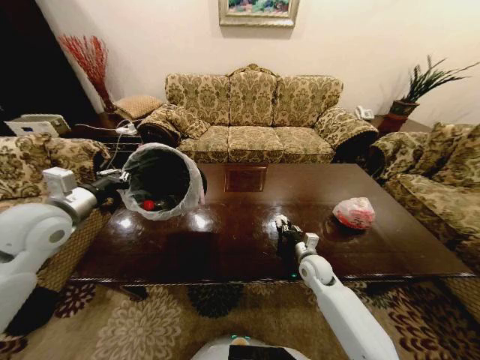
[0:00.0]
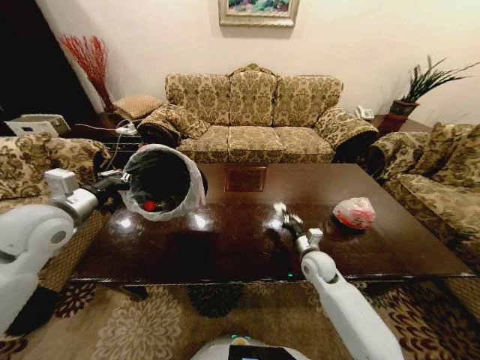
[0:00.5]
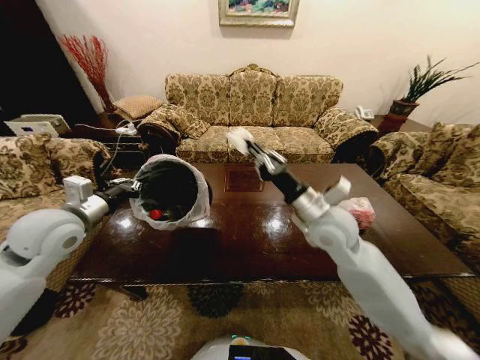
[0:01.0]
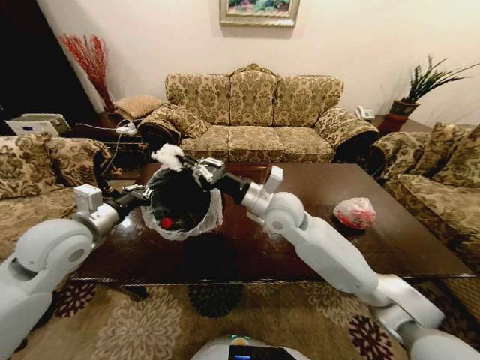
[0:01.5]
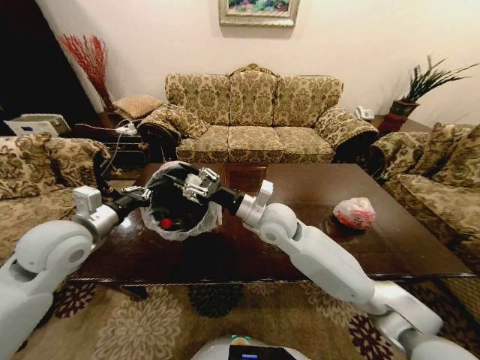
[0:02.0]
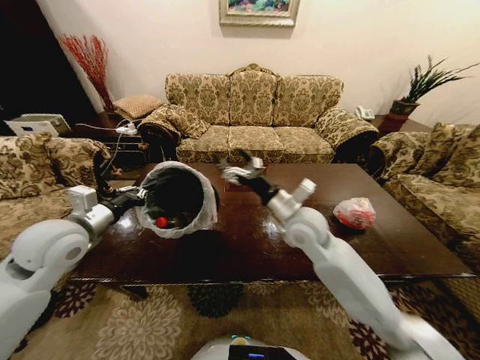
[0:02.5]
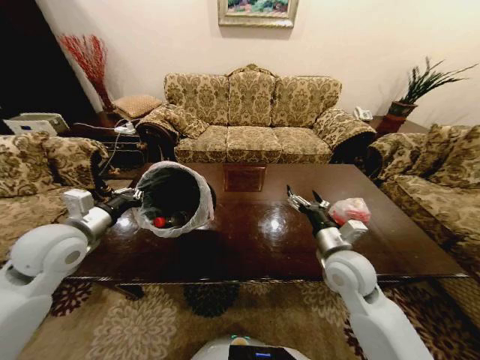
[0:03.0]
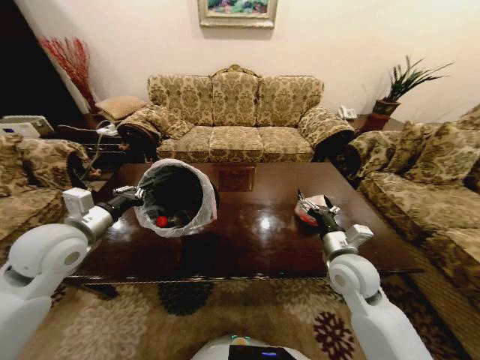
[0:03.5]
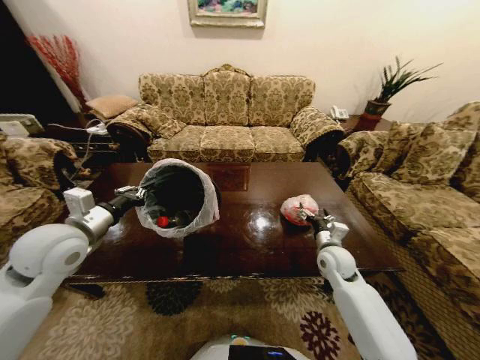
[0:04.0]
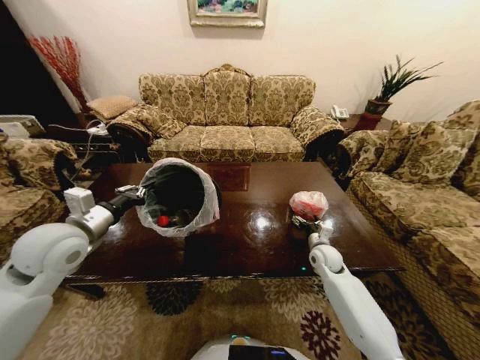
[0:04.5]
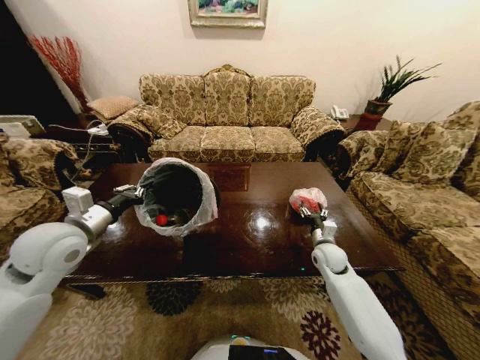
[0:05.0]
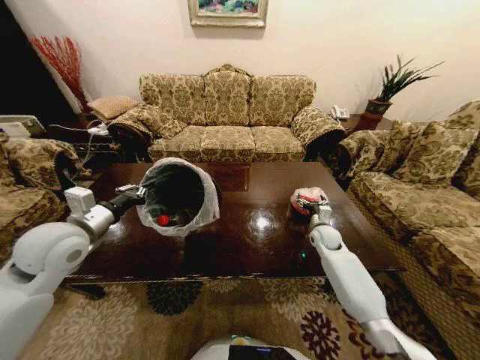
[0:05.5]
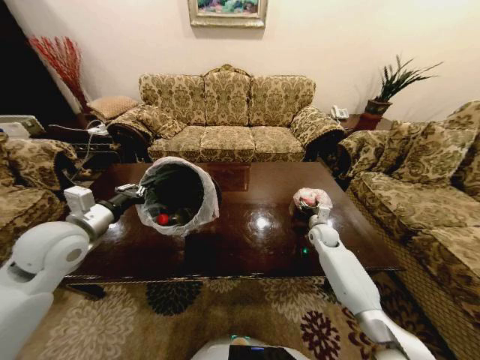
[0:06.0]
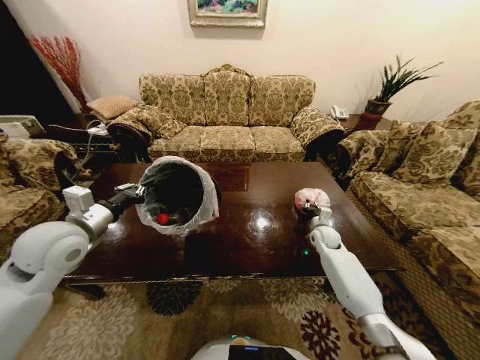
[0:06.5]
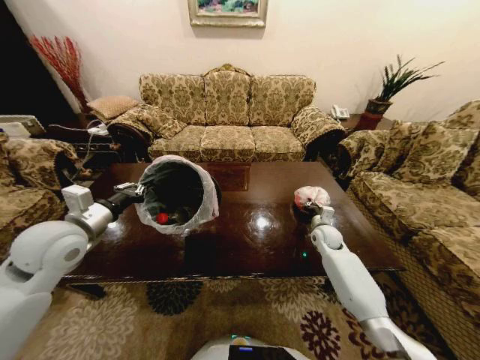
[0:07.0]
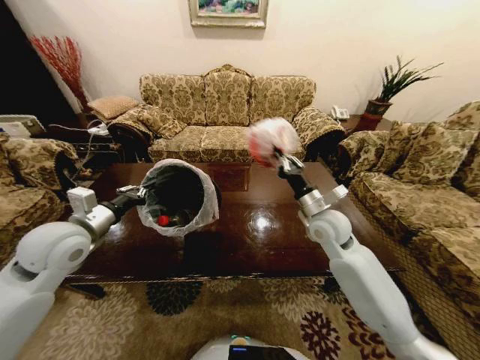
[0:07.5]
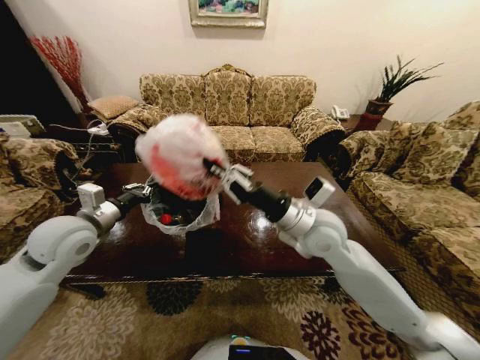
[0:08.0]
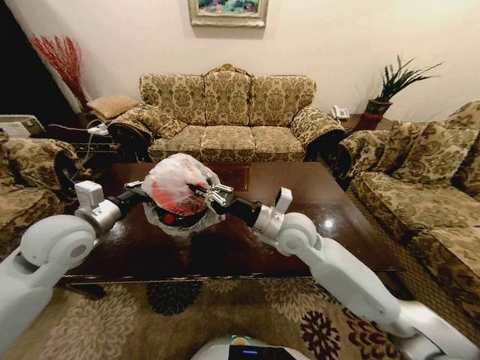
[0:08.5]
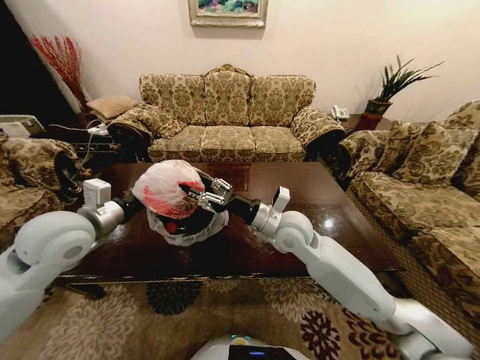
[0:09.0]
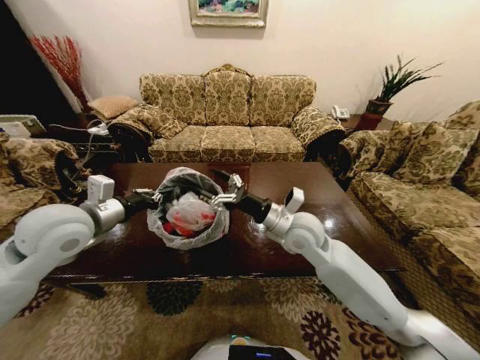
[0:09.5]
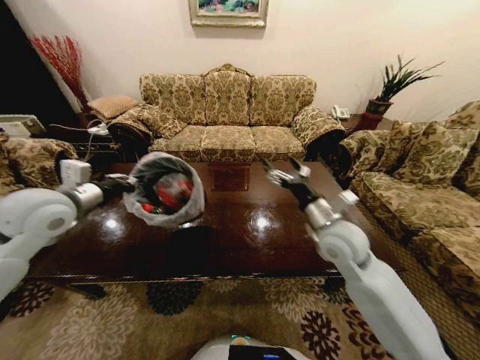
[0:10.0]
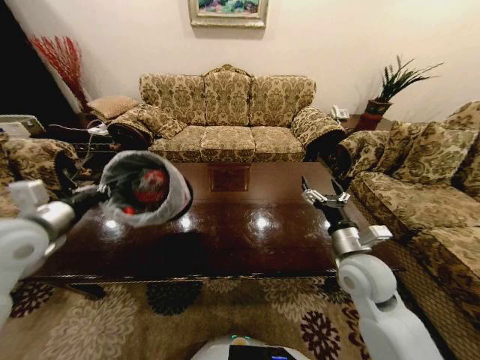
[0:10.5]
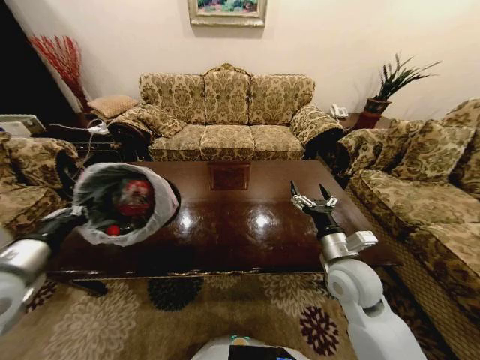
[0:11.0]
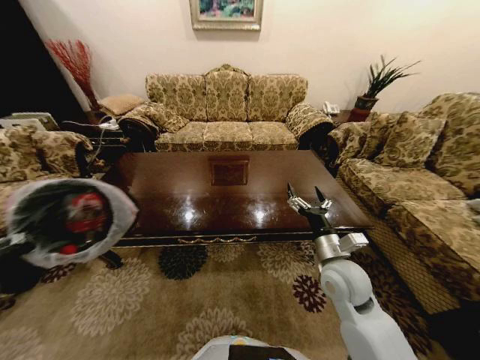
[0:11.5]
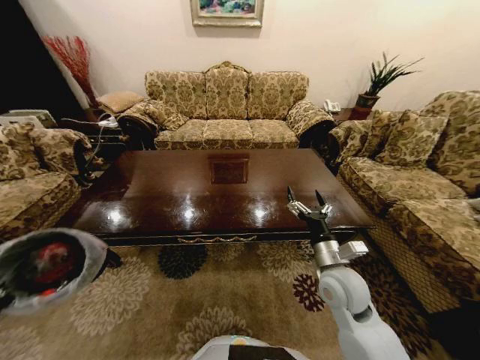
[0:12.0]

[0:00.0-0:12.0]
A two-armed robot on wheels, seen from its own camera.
Task of the whole recording: Move to the front of the table and place the trash on the table into the trash bin.
0:00.0 to 0:02.0: The right gripper is displaced upward and to the left by about 30 cm. The left gripper ends up roughly 5 cm from where it was.
0:02.0 to 0:04.0: The right gripper travels to the right and downward by roughly 25 cm, and opens its fingers.
0:04.0 to 0:06.0: The right gripper is displaced forward by about 10 cm.
0:06.0 to 0:08.0: The right gripper shifts about 35 cm upward, to the left and backward, and closes its fingers.
0:08.0 to 0:10.0: The left gripper heads upward, covering about 5 cm; the right gripper goes about 5 cm to the right, and opens up.
0:10.0 to 0:12.0: The right gripper moves downward and backward, about 10 cm. The left gripper travels backward, downward and to the left by about 35 cm.

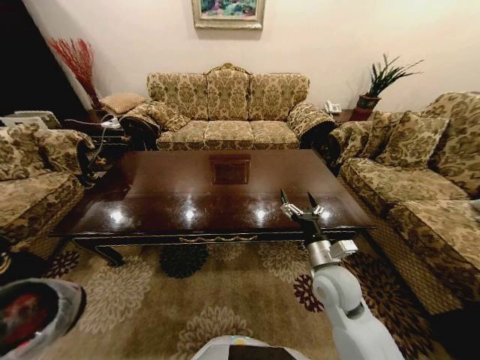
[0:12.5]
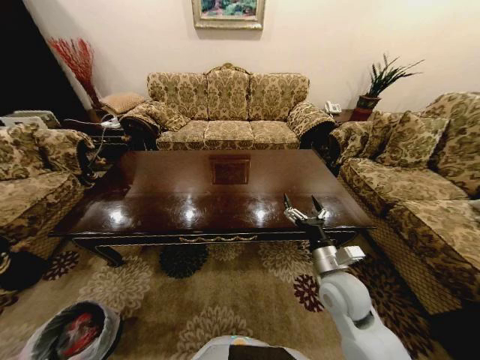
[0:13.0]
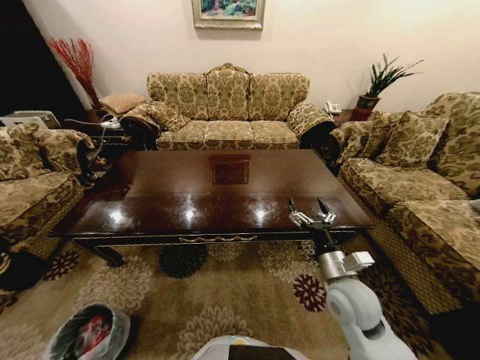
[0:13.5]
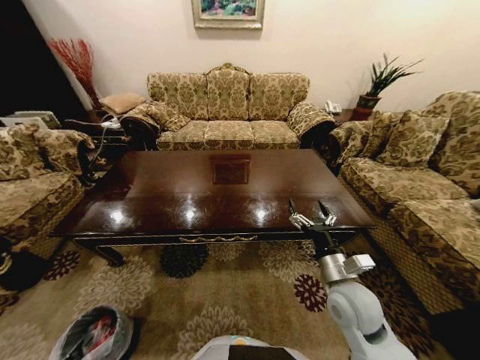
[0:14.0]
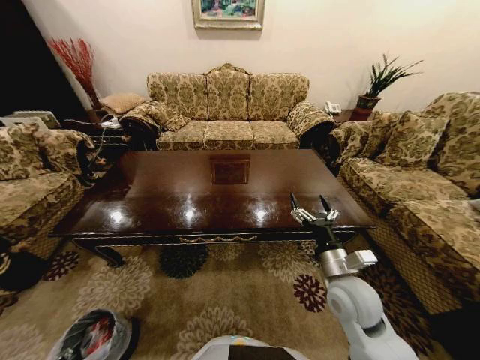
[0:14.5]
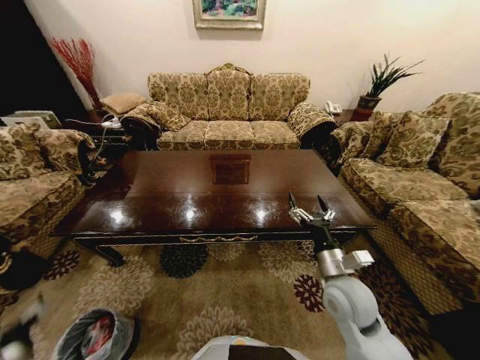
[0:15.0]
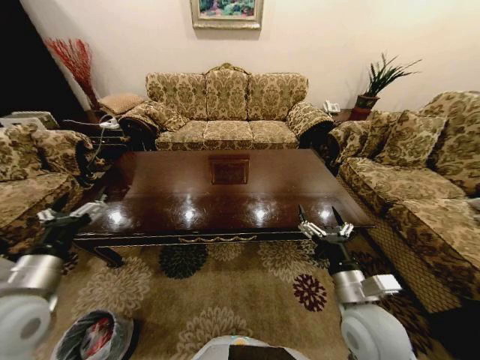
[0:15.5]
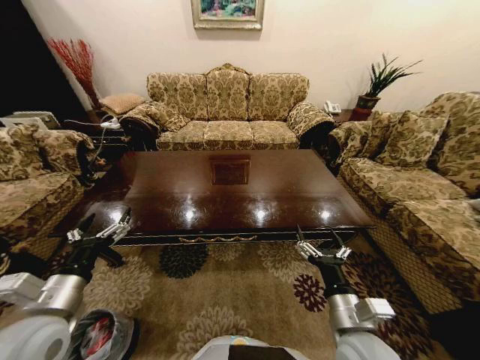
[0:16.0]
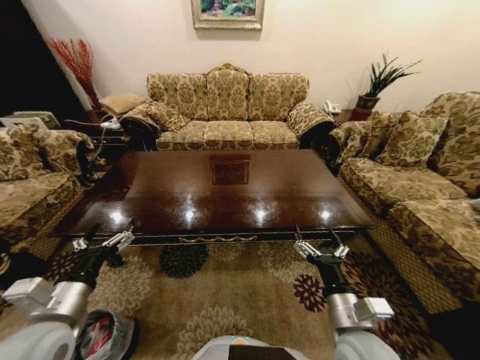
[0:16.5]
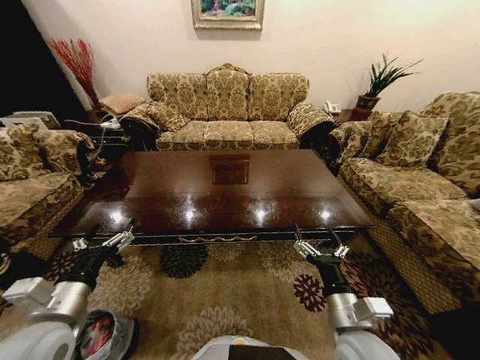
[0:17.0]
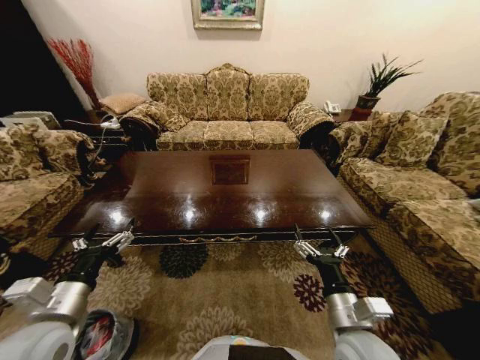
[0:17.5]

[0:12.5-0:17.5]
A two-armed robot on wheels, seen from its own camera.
Task of the whole recording: Move to the front of the table and place the trash on the table into the trash bin.
0:12.5 to 0:15.0: The left gripper moves forward, approximately 10 cm, travels downward and back again, about 20 cm each way, and opens.
0:15.0 to 0:17.5: The left gripper heads to the right and upward, covering approximately 25 cm. Meanwhile the right gripper is displaced backward by roughly 10 cm.
